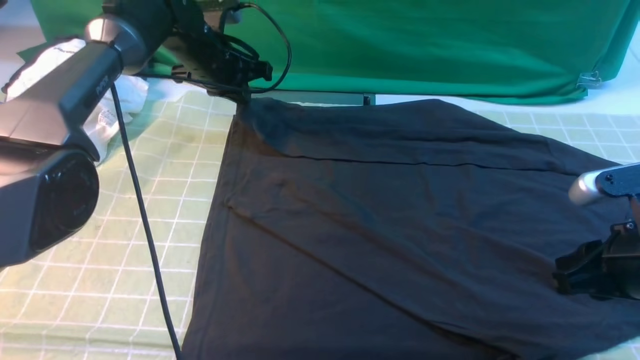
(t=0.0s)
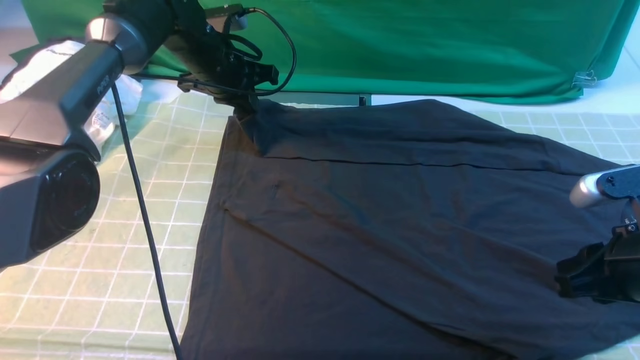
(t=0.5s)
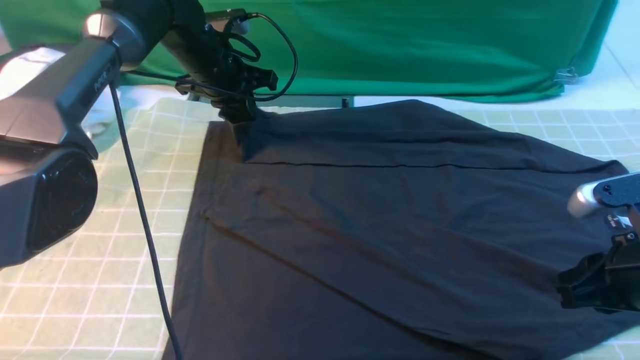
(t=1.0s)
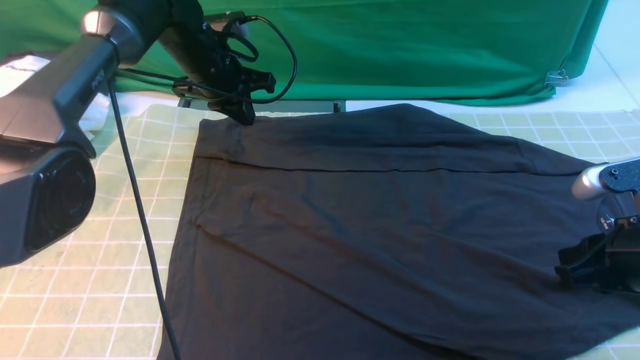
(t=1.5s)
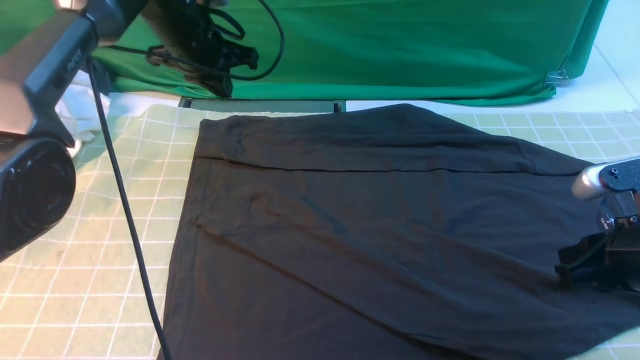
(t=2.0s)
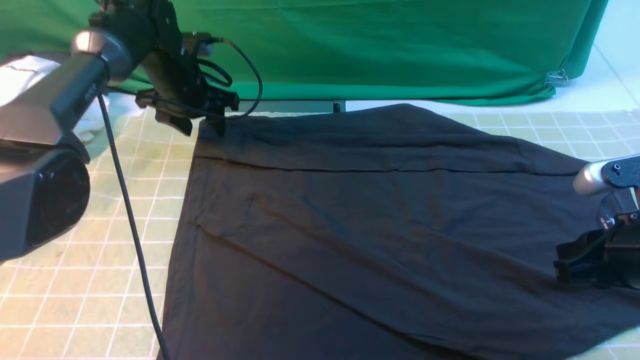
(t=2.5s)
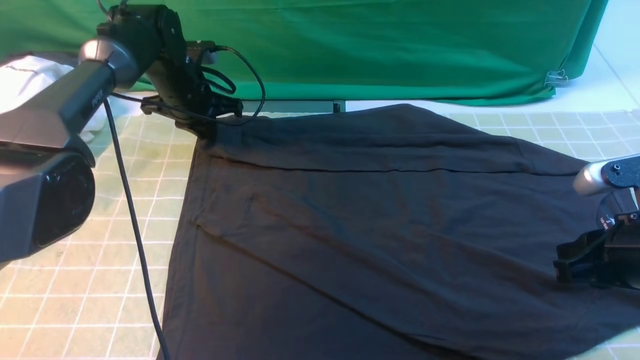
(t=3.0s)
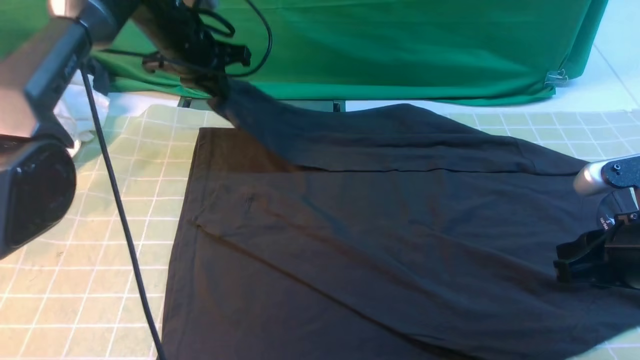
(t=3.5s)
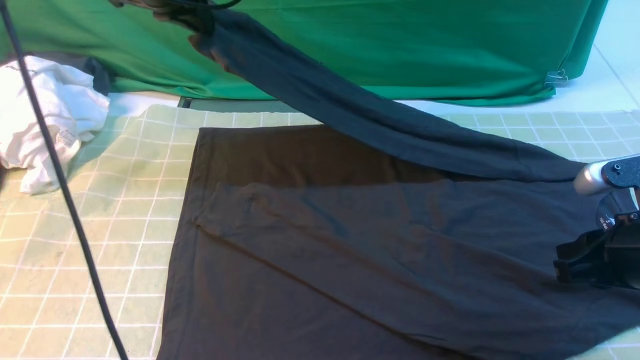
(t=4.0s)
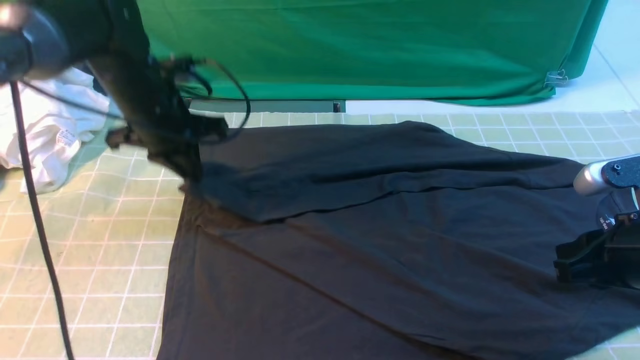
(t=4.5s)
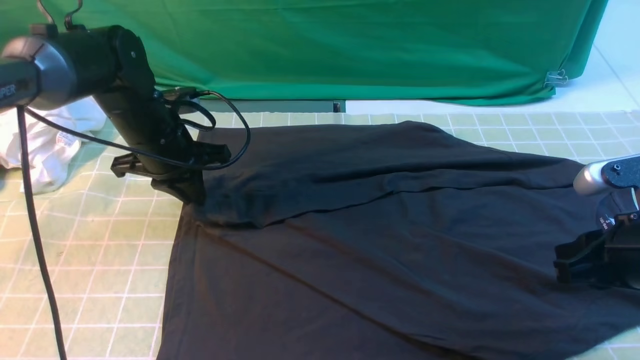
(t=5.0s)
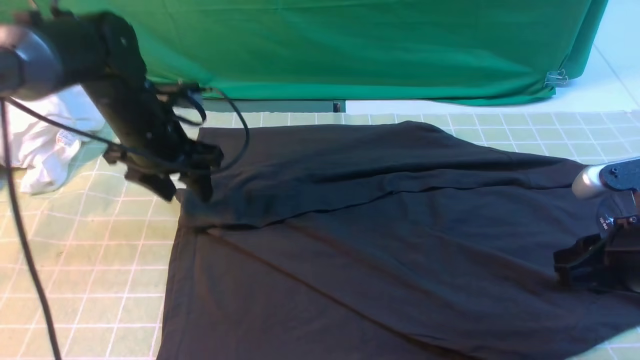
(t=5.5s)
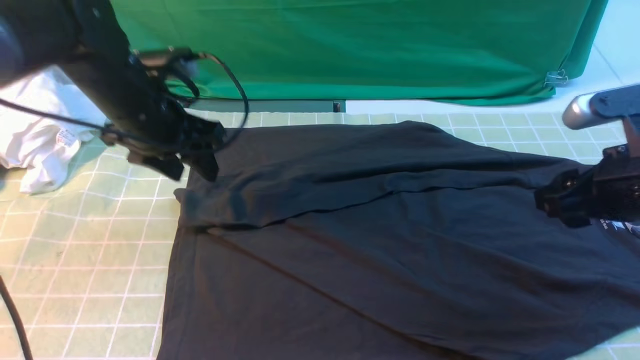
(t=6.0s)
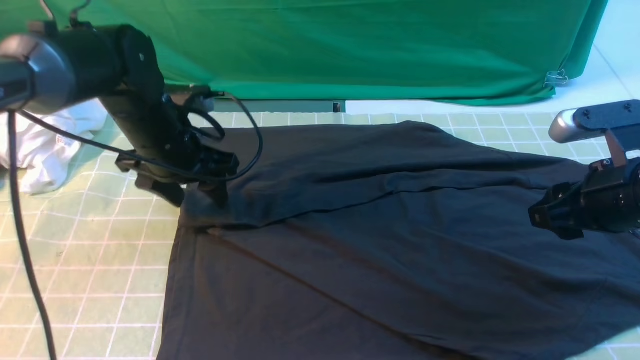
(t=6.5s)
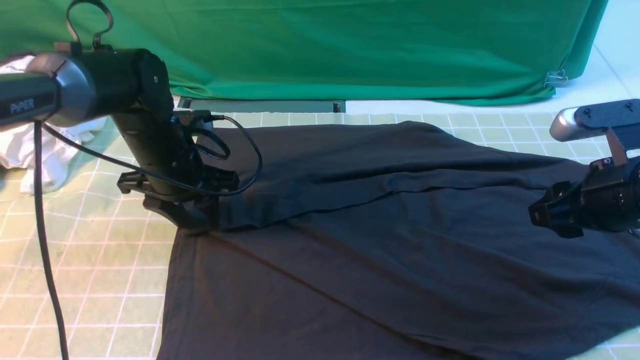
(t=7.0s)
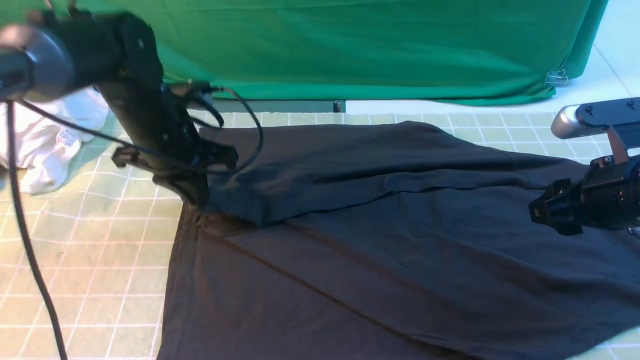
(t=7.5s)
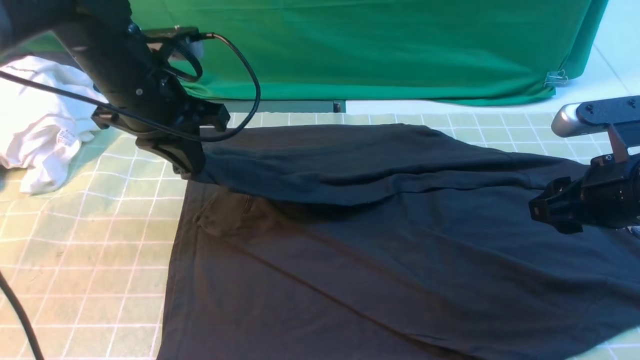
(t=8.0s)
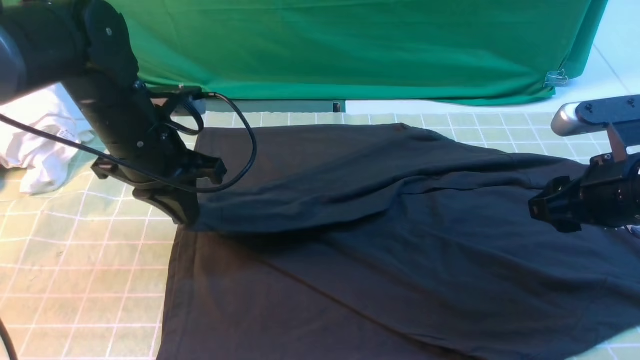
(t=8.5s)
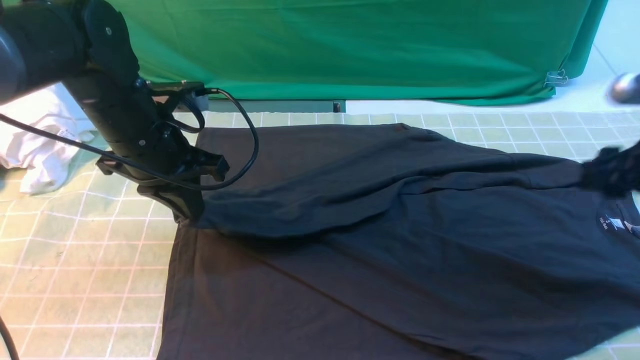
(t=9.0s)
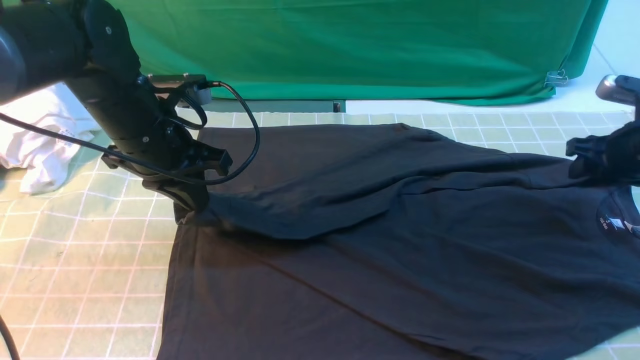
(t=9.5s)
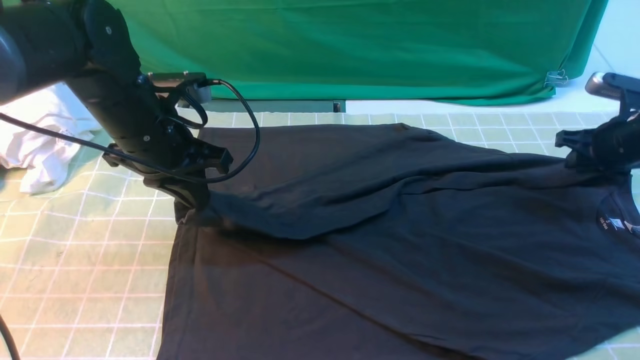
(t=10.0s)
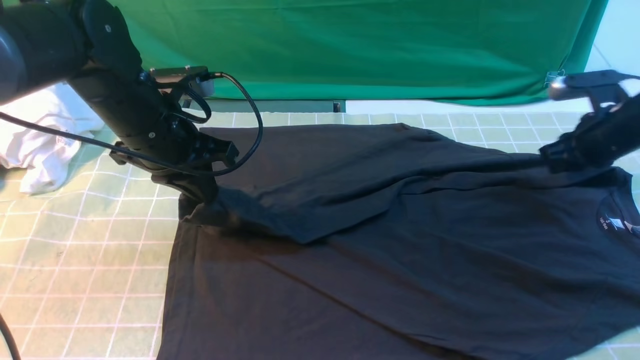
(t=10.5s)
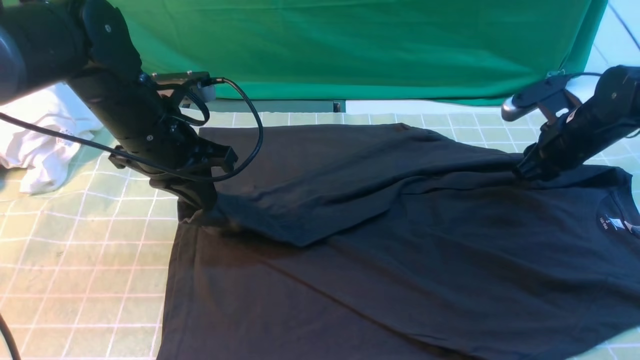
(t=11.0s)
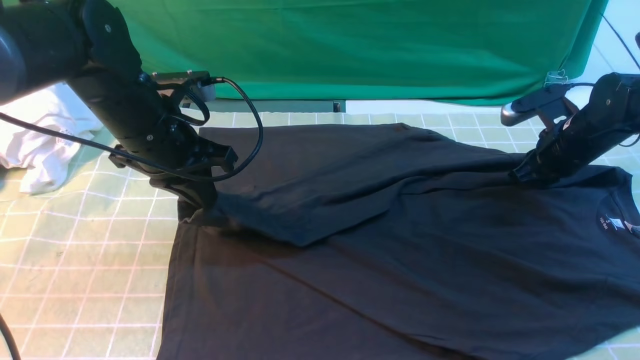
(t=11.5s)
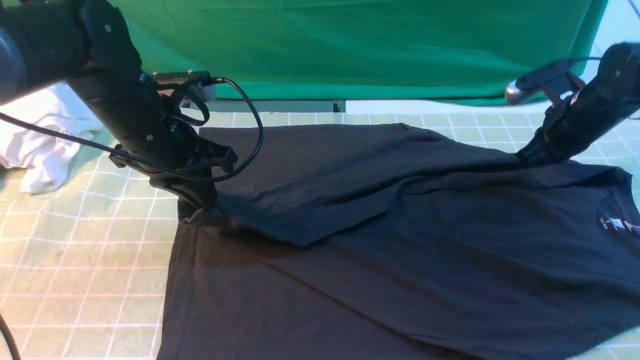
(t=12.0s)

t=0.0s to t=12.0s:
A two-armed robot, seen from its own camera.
Step, t=0.0s to t=2.5s: use the left arm to clamp the cuff farthest from it.
t=2.0s to t=4.0s: The left gripper travels upward by roughly 10 cm, and opens and closes again.
t=4.0s to t=6.0s: The left gripper goes some 10 cm downward and backward, and opens up; the right gripper moves some 5 cm, and opens.
t=6.0s to t=8.0s: The left gripper travels downward and back again, roughly 5 cm each way, and closes.
t=8.0s to t=10.0s: The right gripper is displaced forward, to the right and downward by roughly 20 cm, and closes its fingers.
t=10.0s to t=12.0s: The right gripper travels to the left by roughly 5 cm.

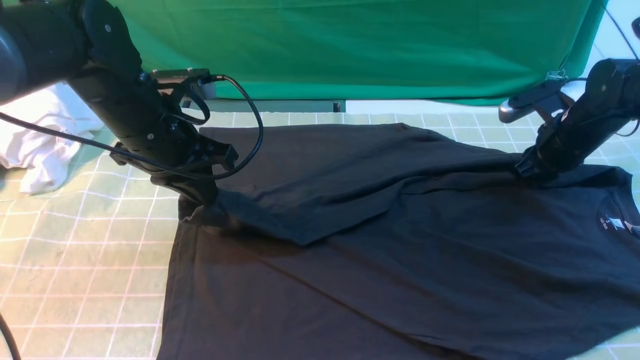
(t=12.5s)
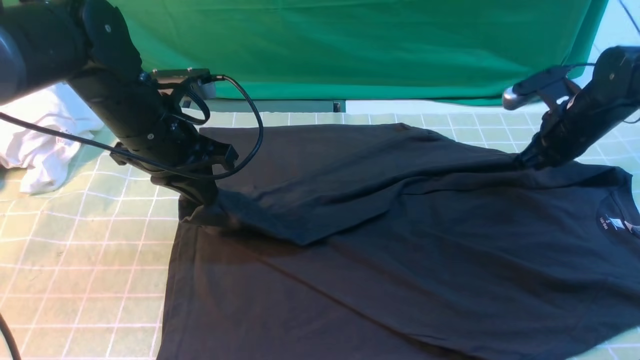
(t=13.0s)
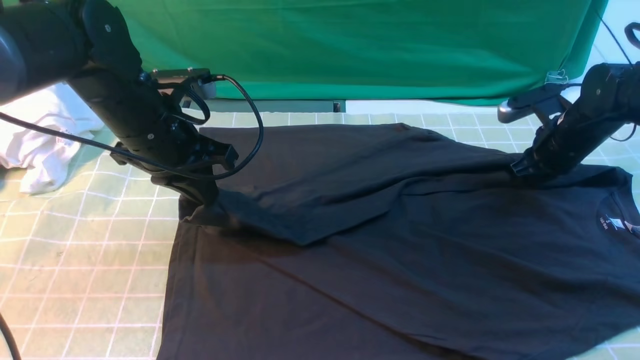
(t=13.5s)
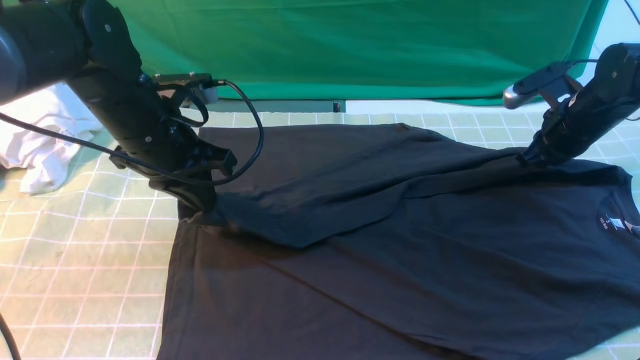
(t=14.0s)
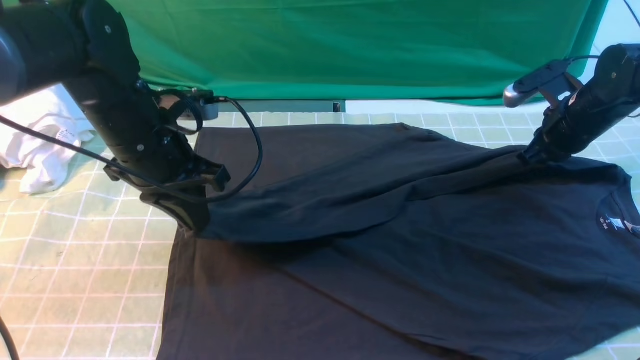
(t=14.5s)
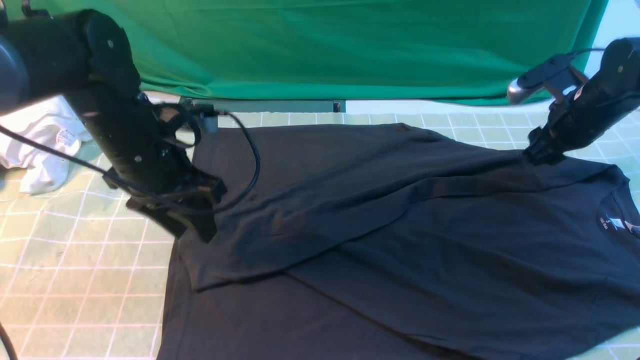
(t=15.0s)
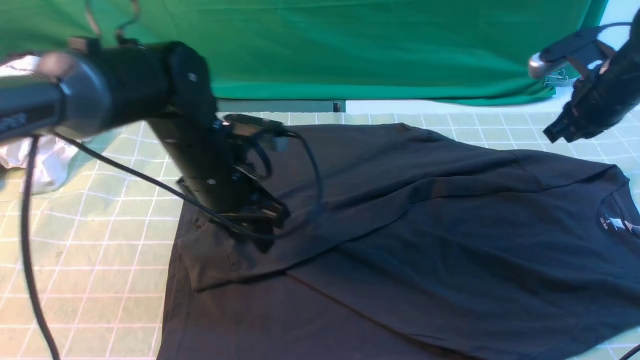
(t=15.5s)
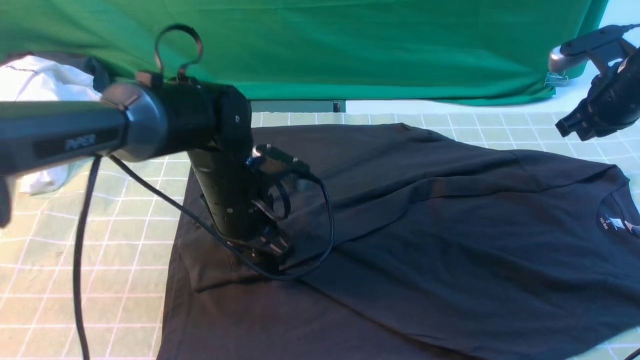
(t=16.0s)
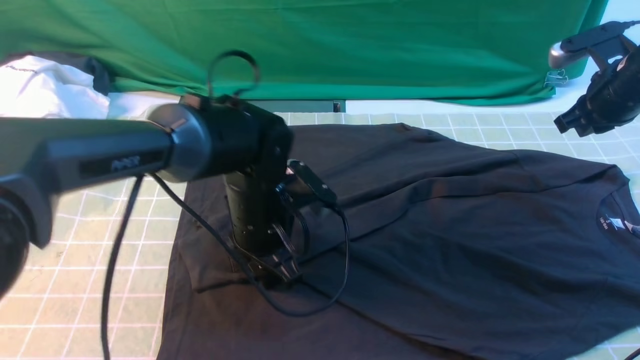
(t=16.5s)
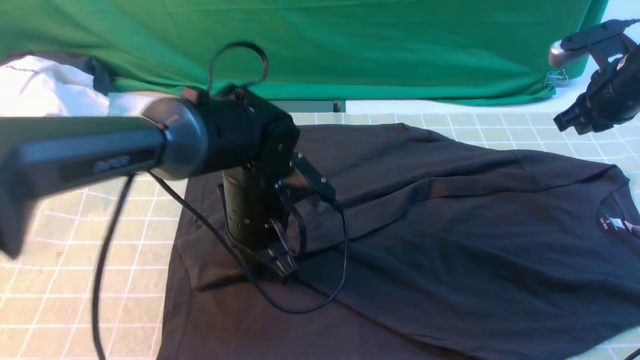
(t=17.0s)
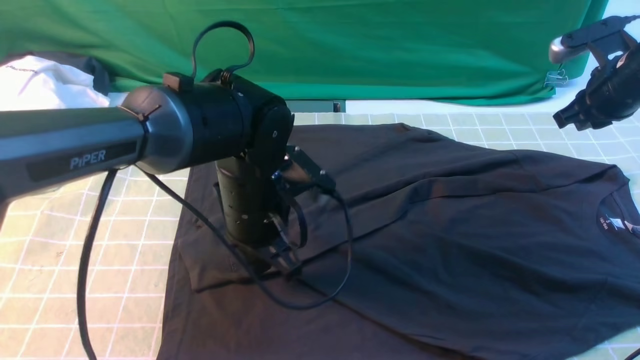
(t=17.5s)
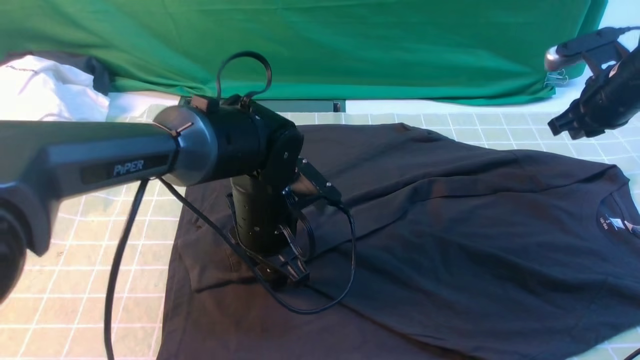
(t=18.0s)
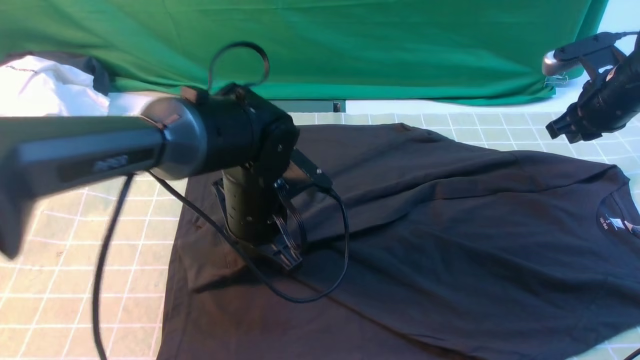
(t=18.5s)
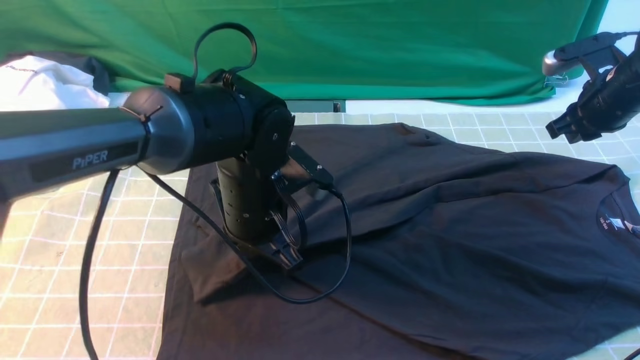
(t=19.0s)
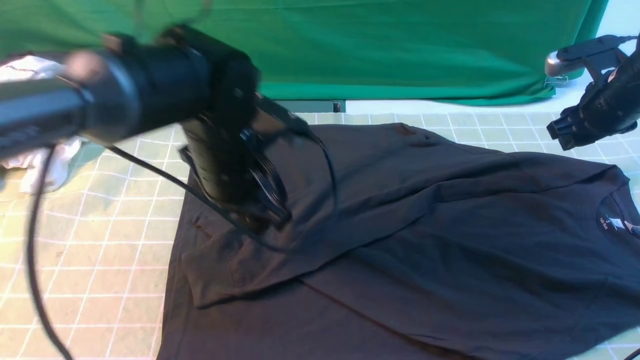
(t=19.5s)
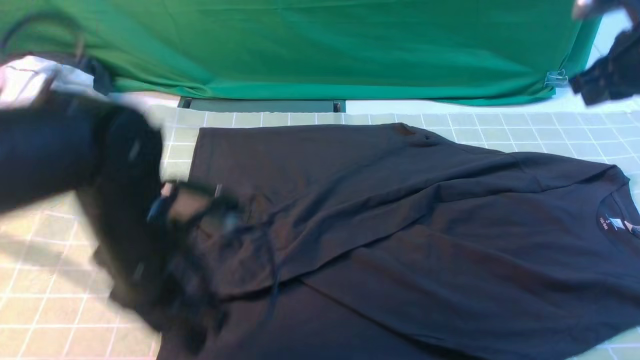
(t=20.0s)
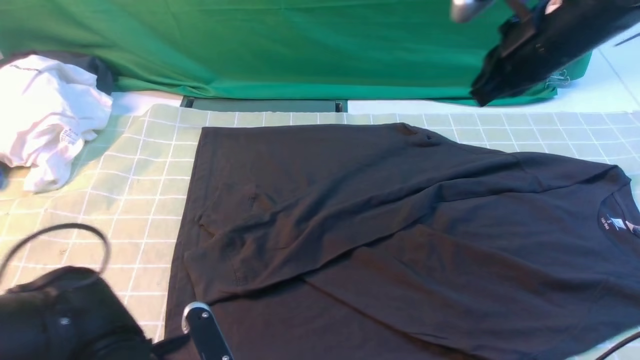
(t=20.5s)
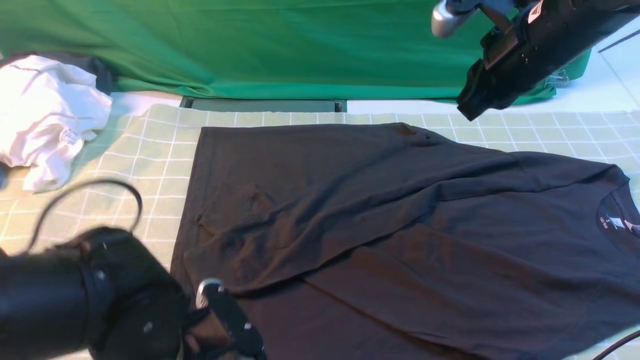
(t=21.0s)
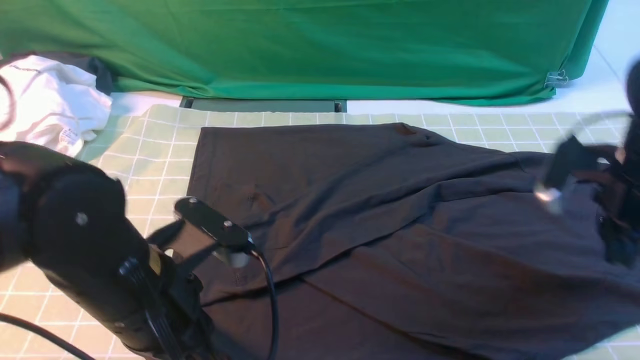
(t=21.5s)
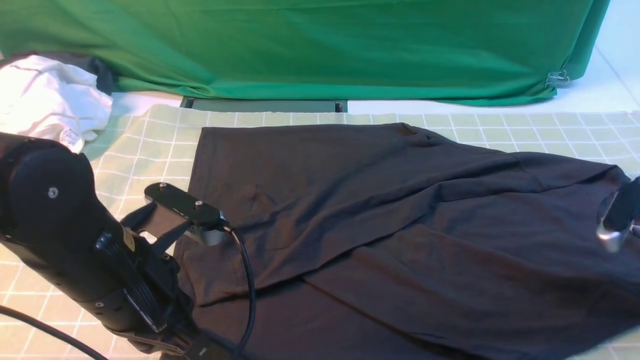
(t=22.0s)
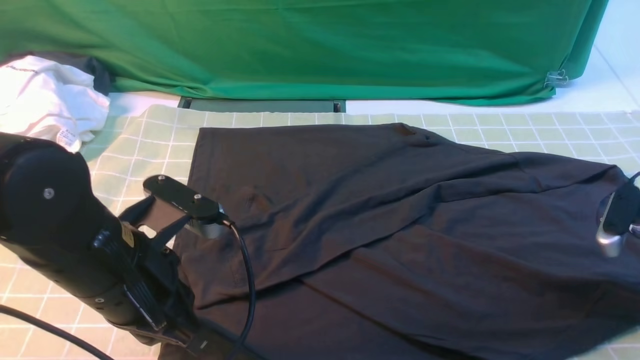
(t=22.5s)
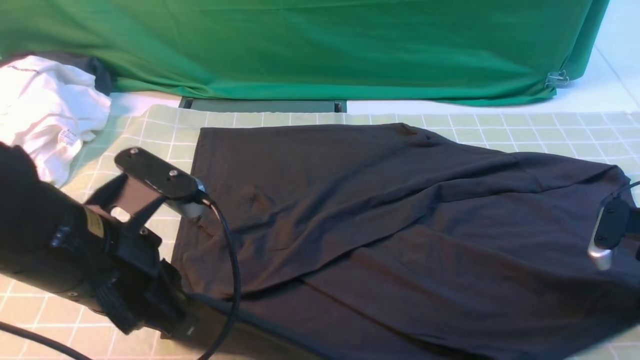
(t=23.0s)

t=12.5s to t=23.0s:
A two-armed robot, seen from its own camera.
Step, t=12.5s to t=19.0s: use the left arm to drag and drop the cuff onto the cuff closest to the left arm.
t=12.5s to t=14.5s: The grippers make only small movements.
t=14.5s to t=16.5s: The right gripper shifts approximately 5 cm upward, and opens and closes again, while the left gripper travels to the right and downward by roughly 15 cm, and opens.
t=16.5s to t=19.0s: The left gripper closes.
t=19.0s to t=21.0s: The right gripper travels to the left, upward and backward by some 20 cm, and opens, then closes again. The left gripper shifts some 15 cm backward, and opens and closes again.
t=21.0s to t=23.0s: The right gripper travels to the right and downward by some 25 cm, and opens, then closes once more. The left gripper is displaced upward by roughly 10 cm.
